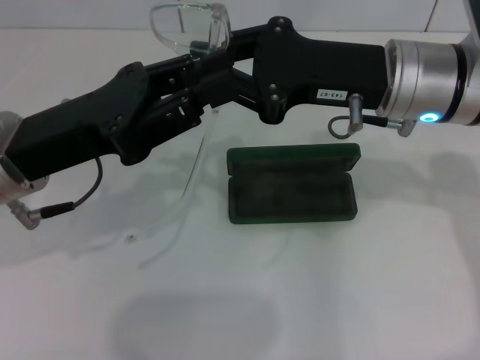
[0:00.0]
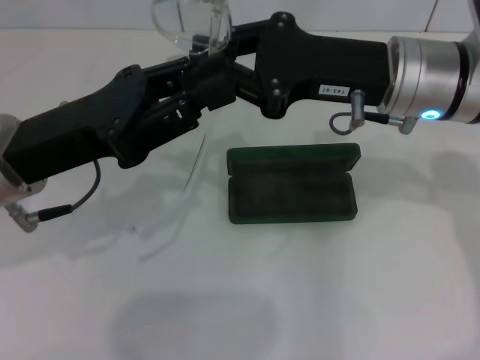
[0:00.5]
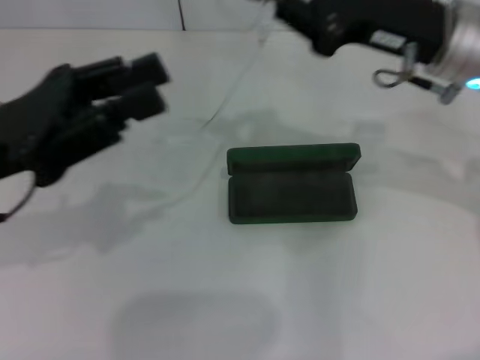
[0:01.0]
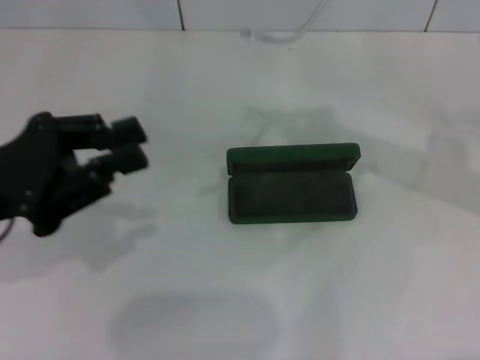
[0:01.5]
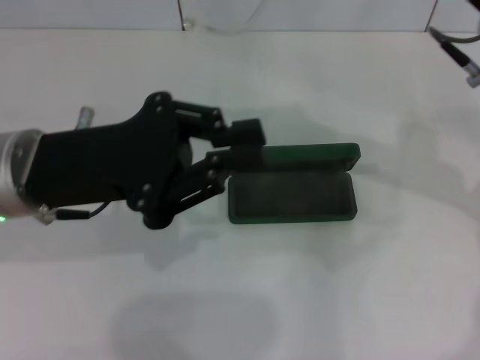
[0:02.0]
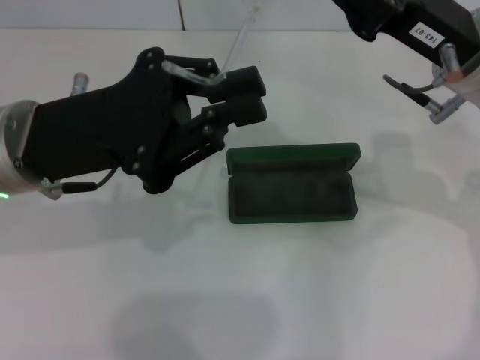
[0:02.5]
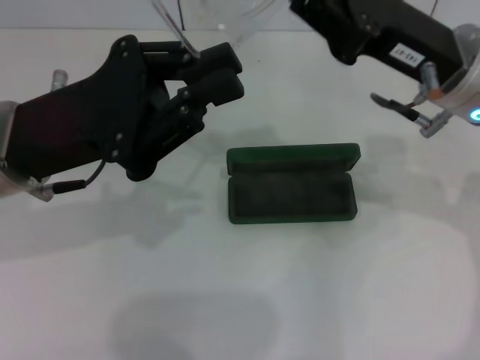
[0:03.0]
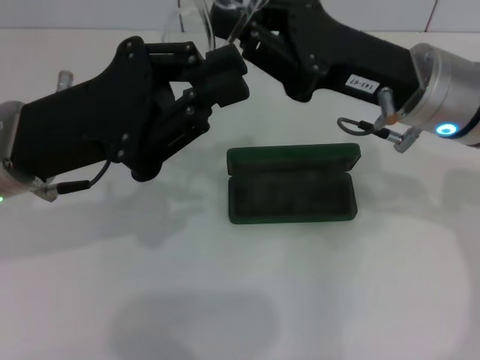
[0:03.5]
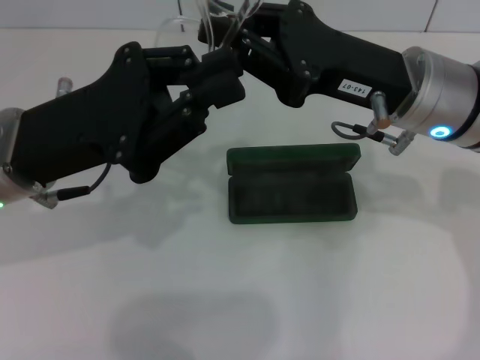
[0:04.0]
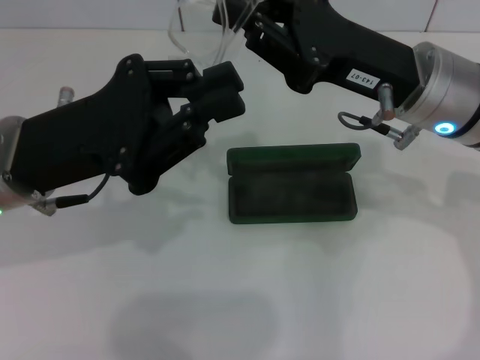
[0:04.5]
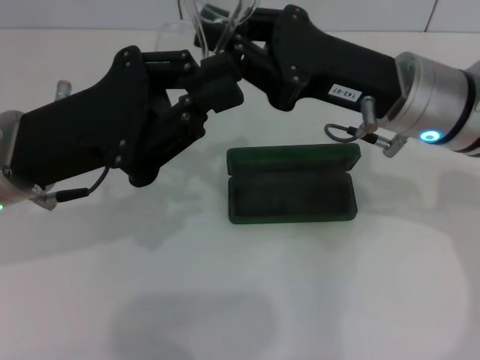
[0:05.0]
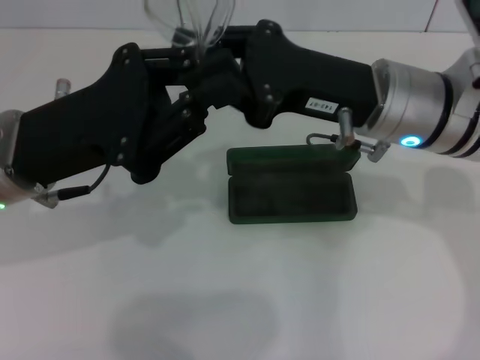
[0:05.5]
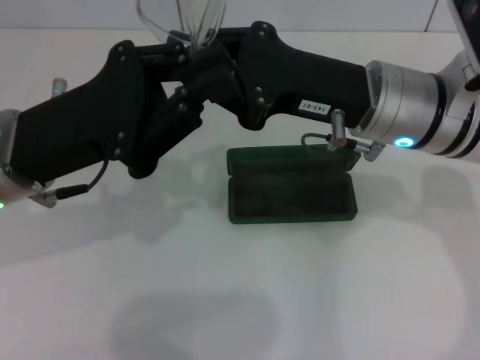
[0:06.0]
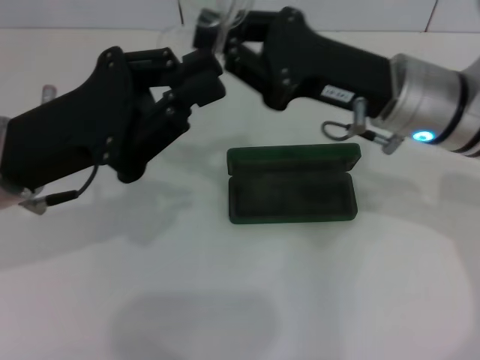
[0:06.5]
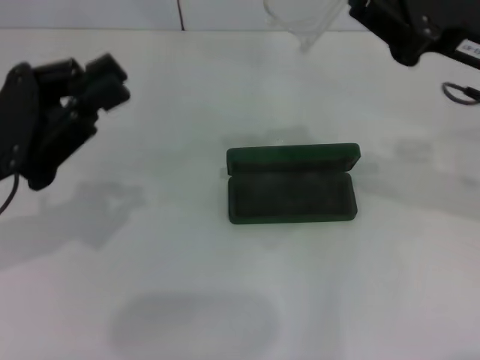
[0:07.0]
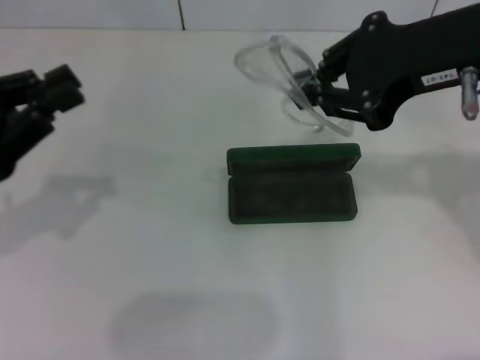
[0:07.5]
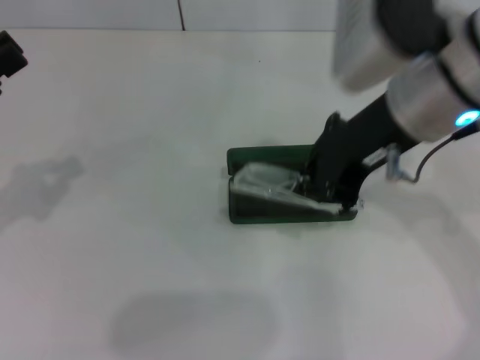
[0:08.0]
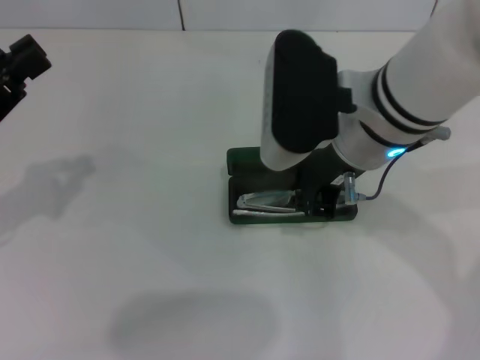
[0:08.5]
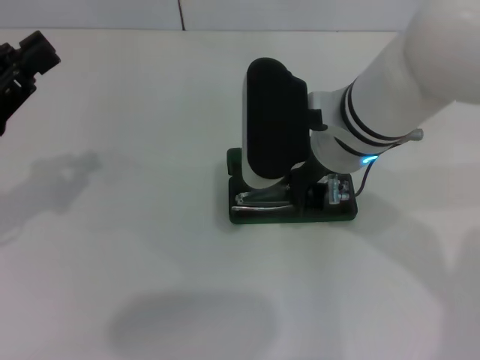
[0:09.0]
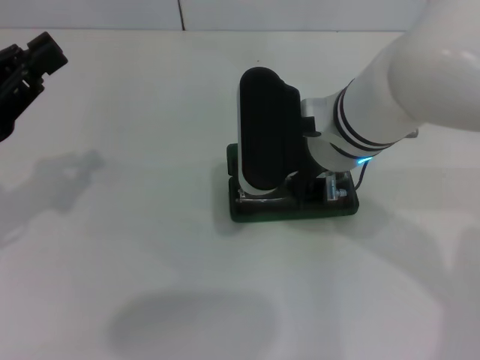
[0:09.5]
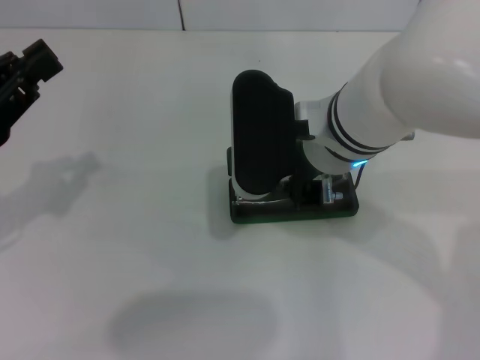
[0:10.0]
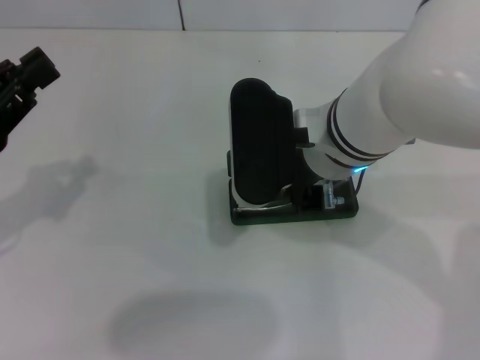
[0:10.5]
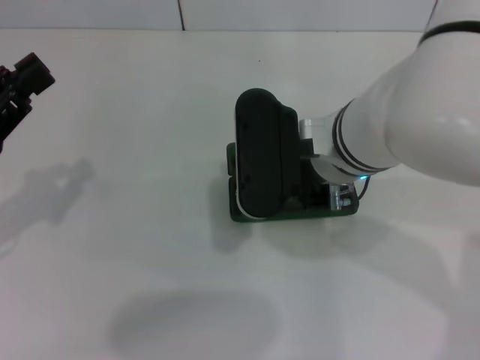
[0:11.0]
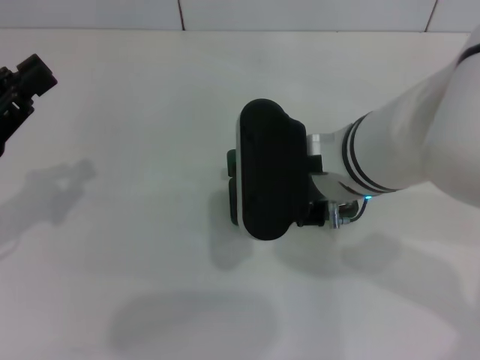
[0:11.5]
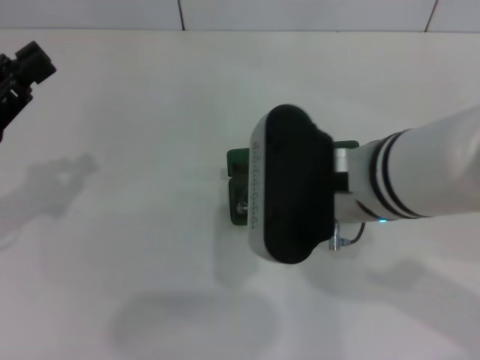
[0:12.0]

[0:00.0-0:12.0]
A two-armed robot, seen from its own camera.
Step, 0:00.0 to 0:03.5: Fold the frame with your left hand.
Step, 0:04.0 to 0:10.5: Put the glasses into the case with your right hand.
0:00.0 to 0:02.0: The right gripper moves to the right, some 5 cm. The left gripper moves approximately 5 cm to the left and comes back.
0:02.0 to 0:04.0: The right gripper moves to the left, about 5 cm.
0:04.0 to 0:06.0: The grippers make only small movements.
0:06.0 to 0:08.0: The right gripper moves upward, about 10 cm. Meanwhile the left gripper moves to the left, roughly 15 cm.
0:08.0 to 0:10.0: The right gripper moves downward and to the left, some 10 cm.
0:10.0 to 0:12.0: The right gripper travels backward by some 5 cm.

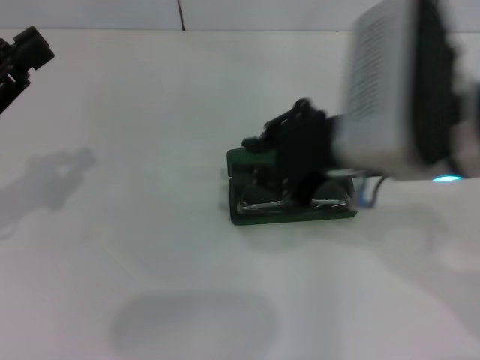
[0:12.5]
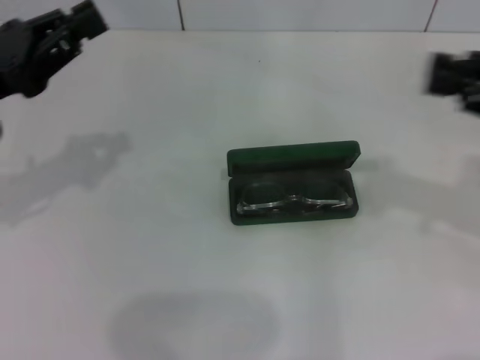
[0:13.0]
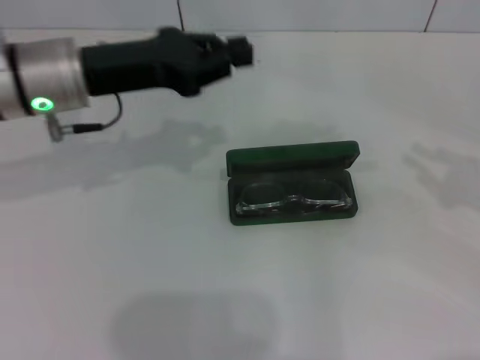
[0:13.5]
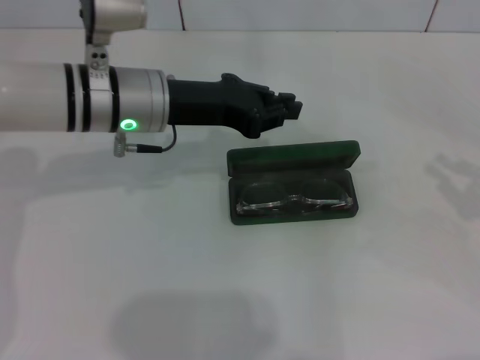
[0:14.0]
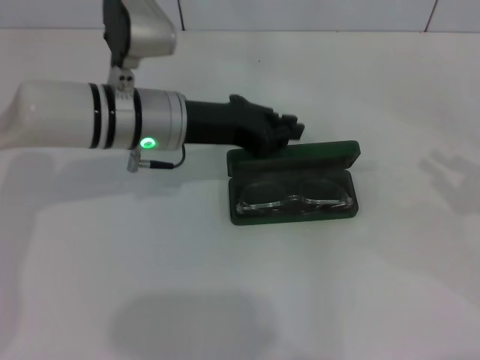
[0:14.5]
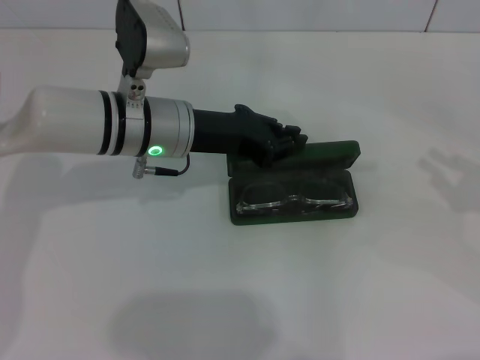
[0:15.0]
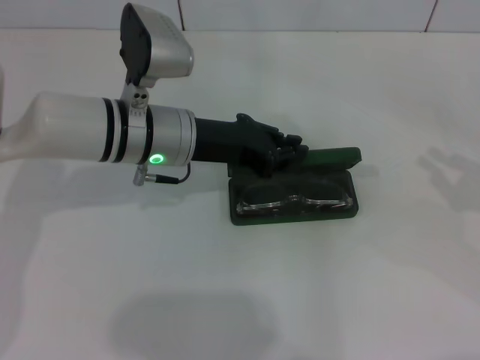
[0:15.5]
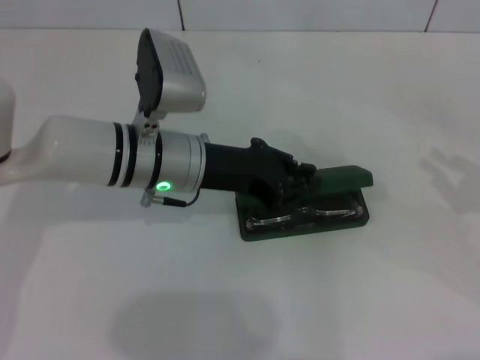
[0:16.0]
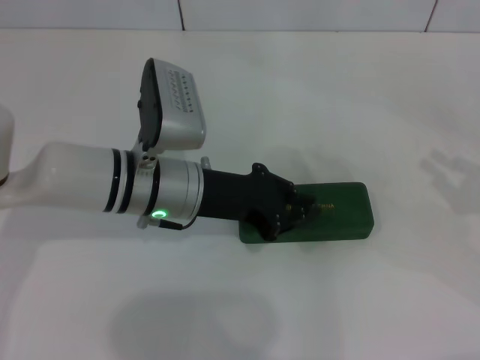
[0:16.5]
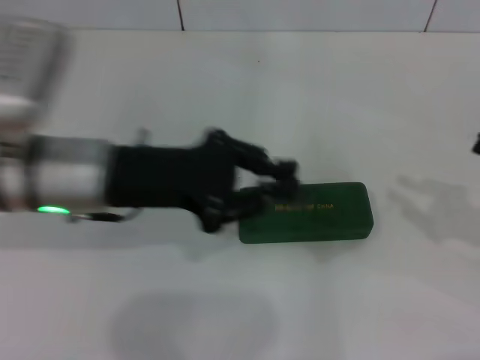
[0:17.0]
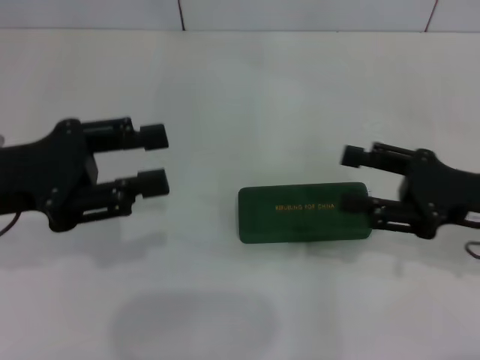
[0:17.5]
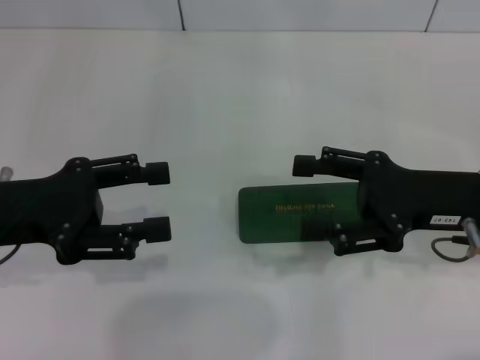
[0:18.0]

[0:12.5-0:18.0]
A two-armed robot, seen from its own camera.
Step, 0:12.5 to 0:16.0: Close the glasses case with your left hand.
0:12.5 to 0:14.5: The left gripper travels to the right and forward by approximately 25 cm; the right gripper shifts about 25 cm to the right.
0:14.5 to 0:16.0: The grippers stay close to where they were, moving slightly.
0:16.0 to 0:18.0: The right gripper travels to the left by some 15 cm, and opens; the left gripper shifts some 20 cm to the left and backward, and opens.

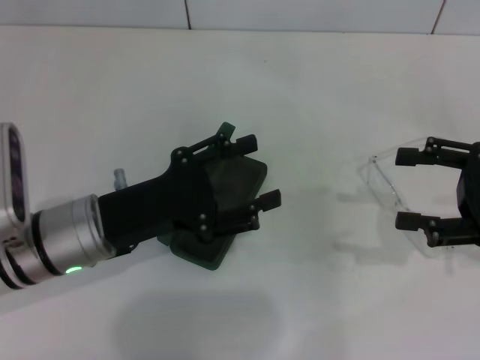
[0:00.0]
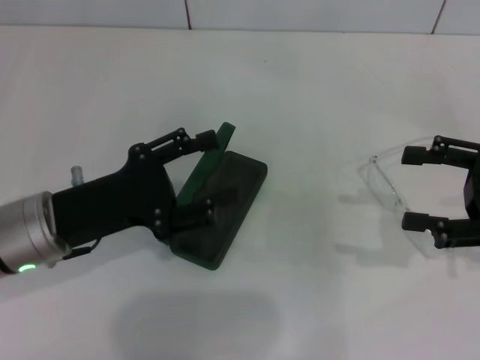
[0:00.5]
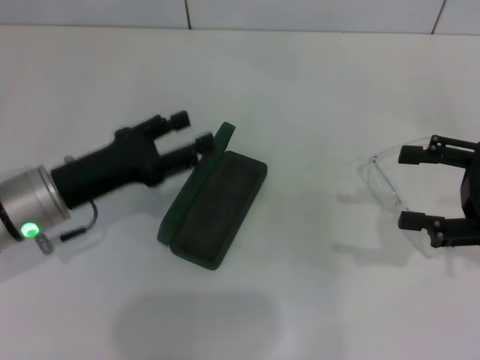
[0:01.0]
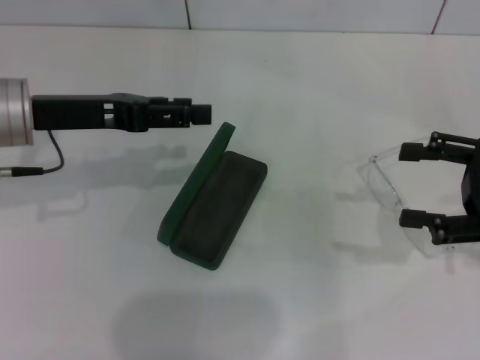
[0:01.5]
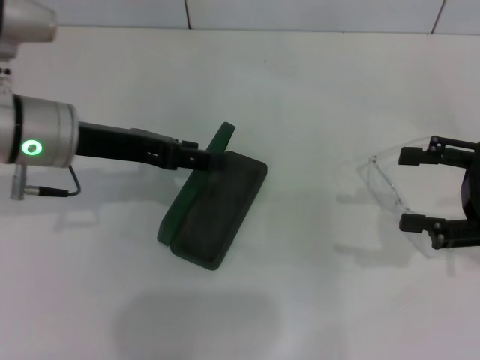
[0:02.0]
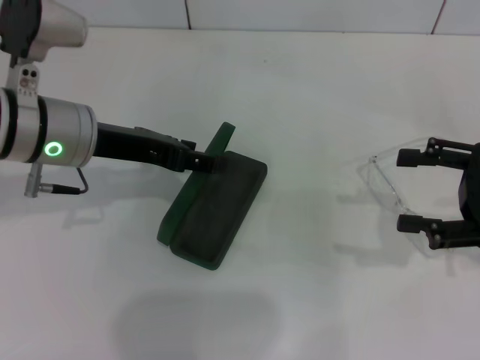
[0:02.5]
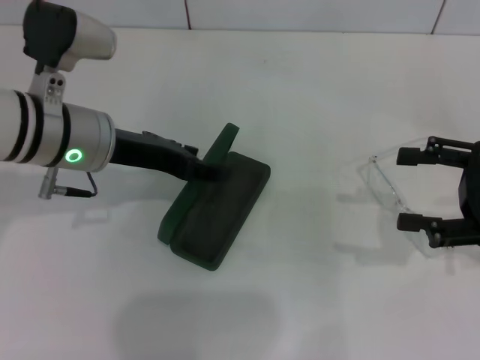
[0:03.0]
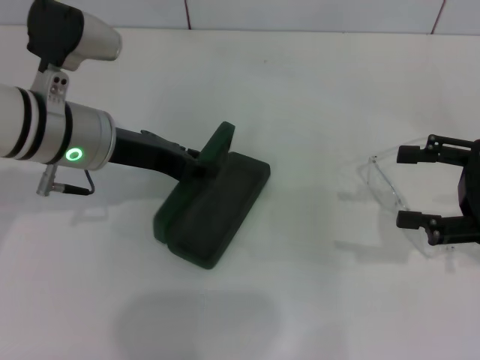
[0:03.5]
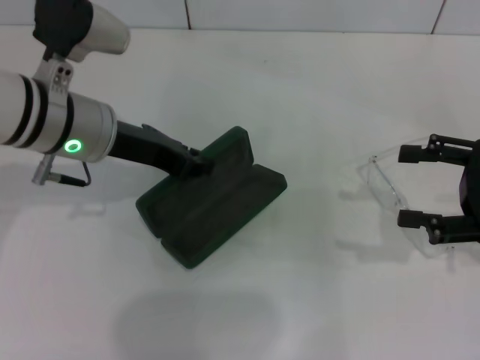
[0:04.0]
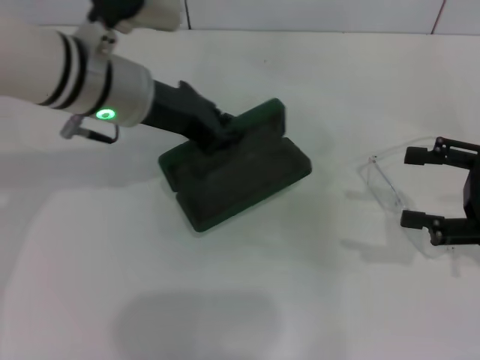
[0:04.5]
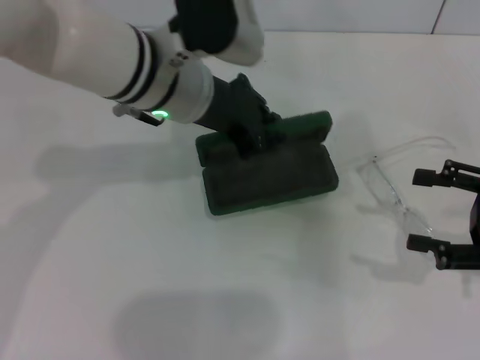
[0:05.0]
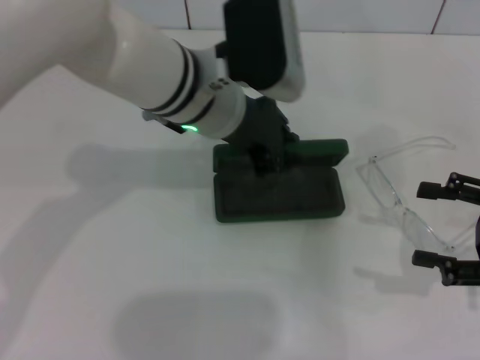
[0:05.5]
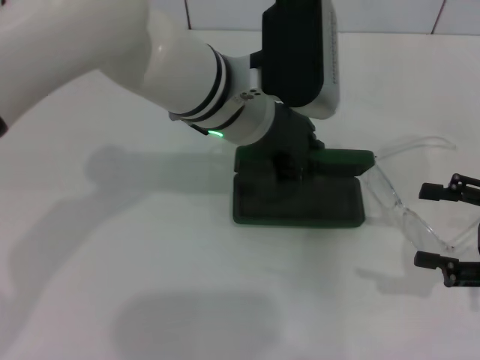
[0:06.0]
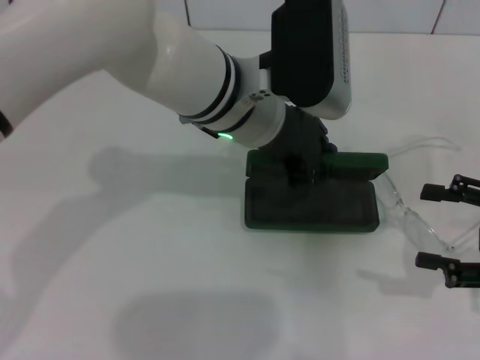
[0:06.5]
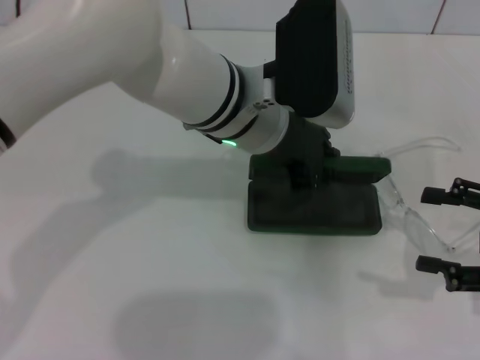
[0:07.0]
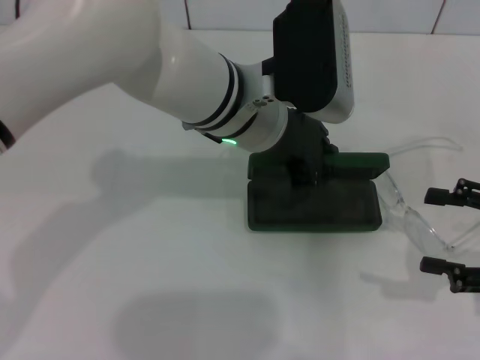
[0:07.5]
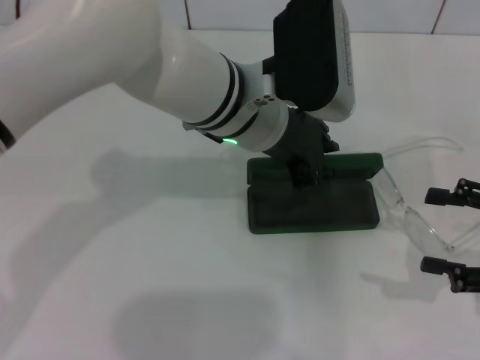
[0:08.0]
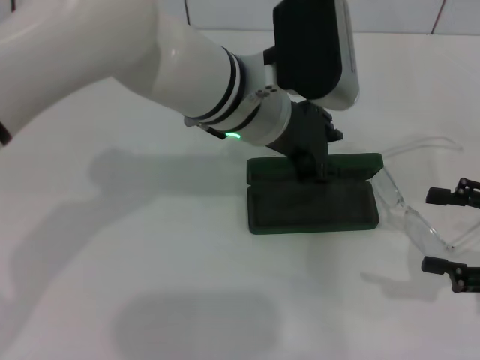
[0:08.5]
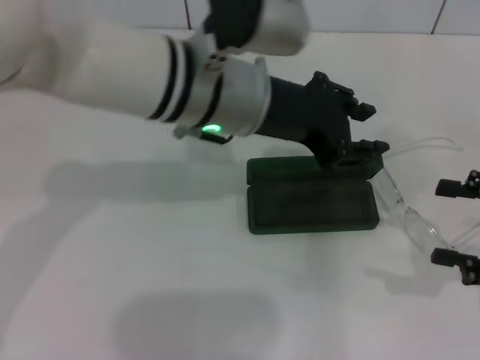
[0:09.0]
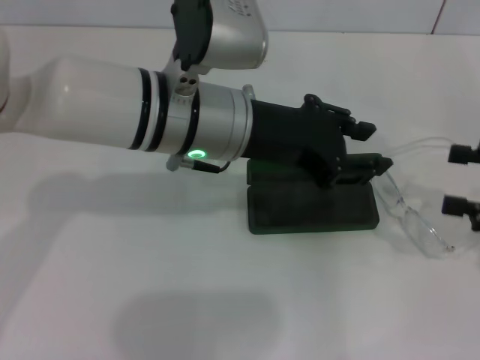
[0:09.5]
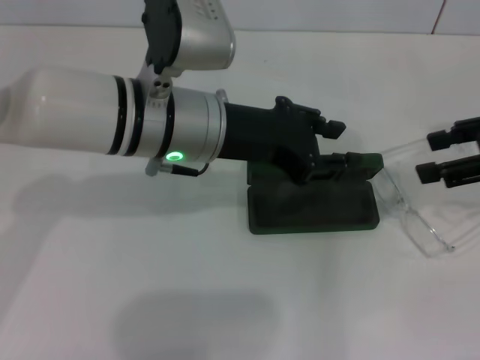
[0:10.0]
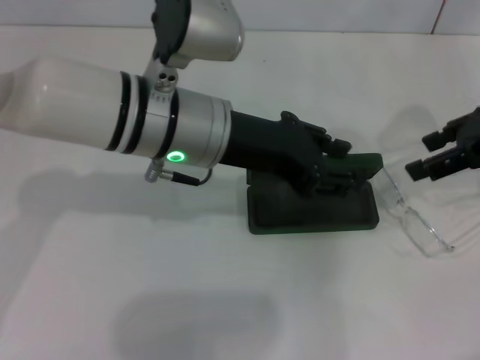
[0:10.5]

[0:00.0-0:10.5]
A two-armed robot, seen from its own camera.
Step, 0:00.0 to 0:03.5: Grab the glasses case with your left hand.
Step, 0:04.0 to 0:08.0: Place the glasses case in the center of the table with your left hand.
0:00.0 to 0:02.0: The left gripper travels upward and forward by approximately 10 cm.
0:02.0 to 0:04.0: The left gripper closes its fingers.
0:04.0 to 0:06.5: The right gripper ends up some 5 cm from where it was. Meanwhile the left gripper shifts approximately 15 cm to the right.
0:06.5 to 0:08.5: The left gripper opens.
0:08.5 to 0:10.5: The right gripper goes about 15 cm forward, upward and to the left. Meanwhile the left gripper shifts roughly 5 cm to the left.
